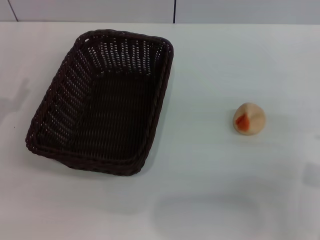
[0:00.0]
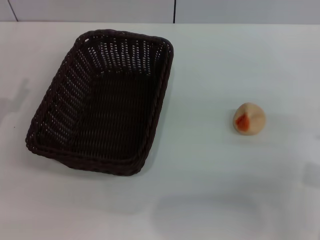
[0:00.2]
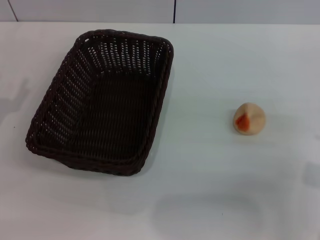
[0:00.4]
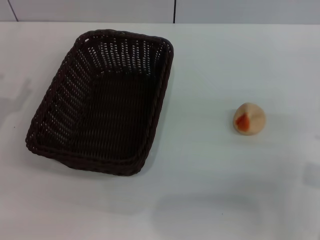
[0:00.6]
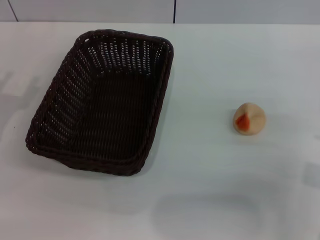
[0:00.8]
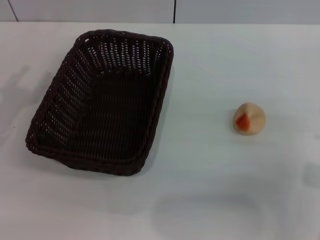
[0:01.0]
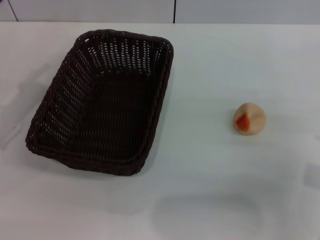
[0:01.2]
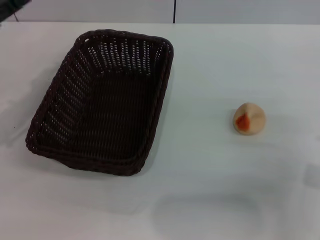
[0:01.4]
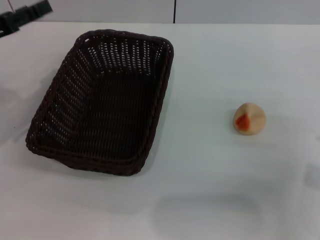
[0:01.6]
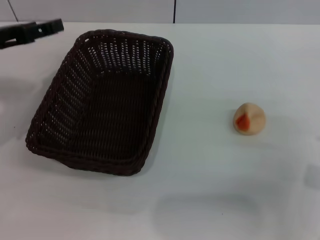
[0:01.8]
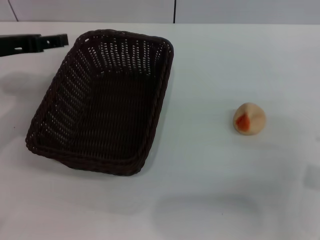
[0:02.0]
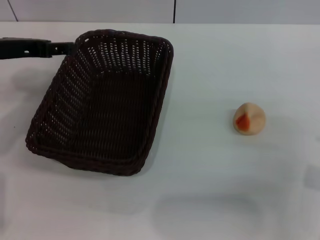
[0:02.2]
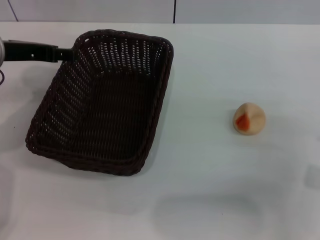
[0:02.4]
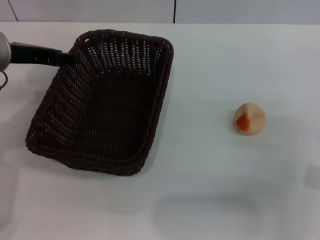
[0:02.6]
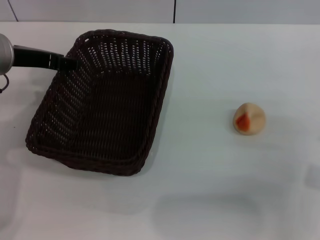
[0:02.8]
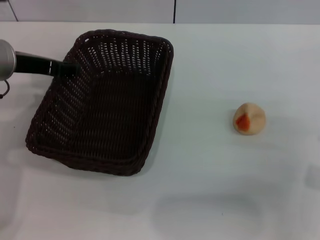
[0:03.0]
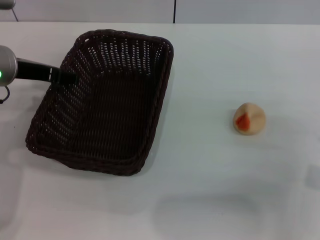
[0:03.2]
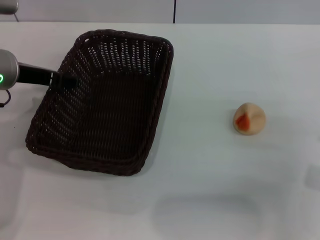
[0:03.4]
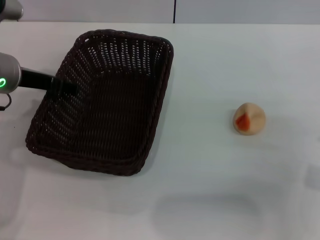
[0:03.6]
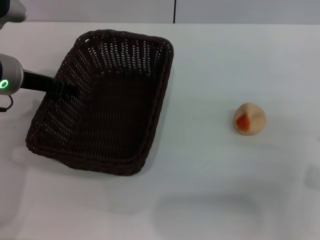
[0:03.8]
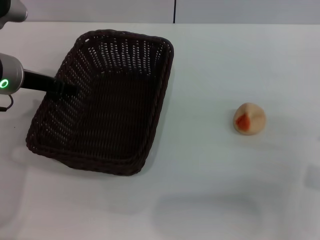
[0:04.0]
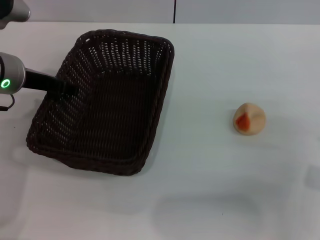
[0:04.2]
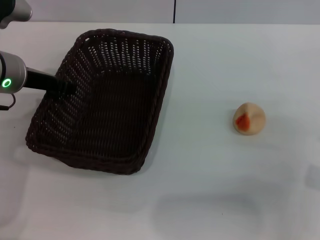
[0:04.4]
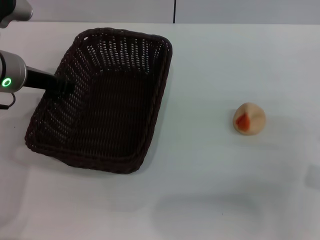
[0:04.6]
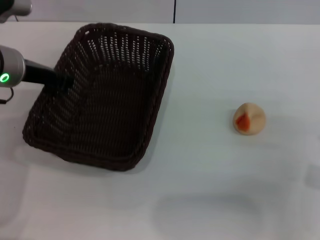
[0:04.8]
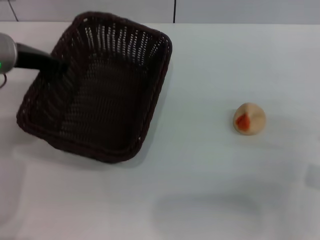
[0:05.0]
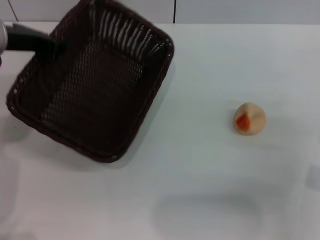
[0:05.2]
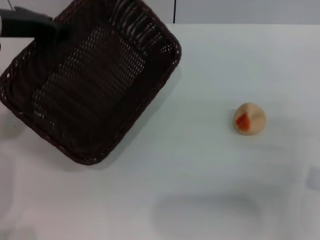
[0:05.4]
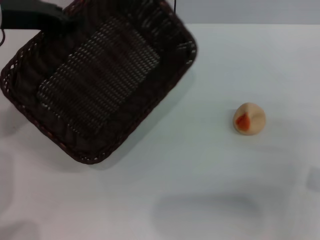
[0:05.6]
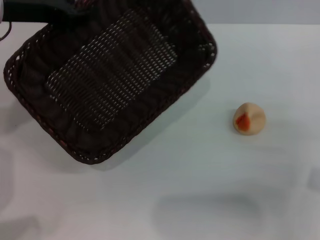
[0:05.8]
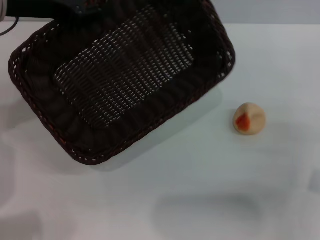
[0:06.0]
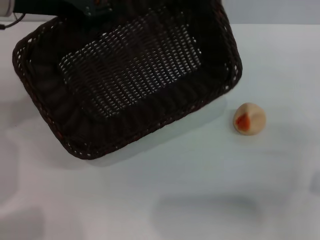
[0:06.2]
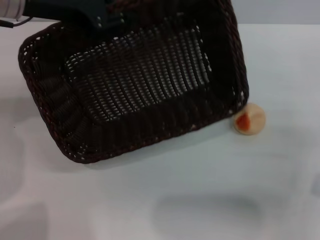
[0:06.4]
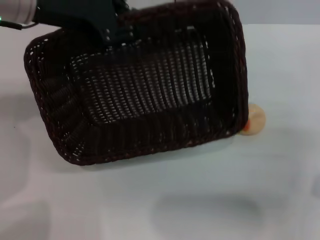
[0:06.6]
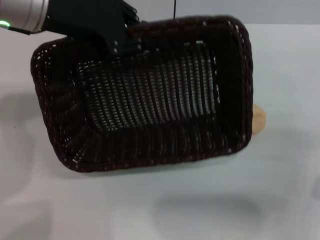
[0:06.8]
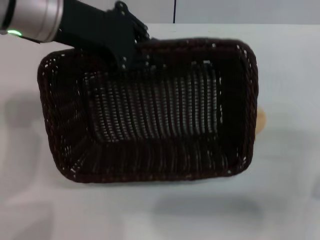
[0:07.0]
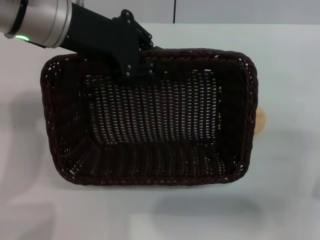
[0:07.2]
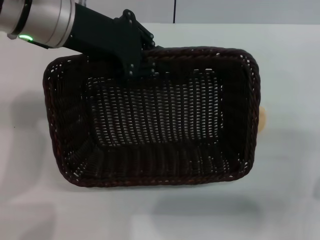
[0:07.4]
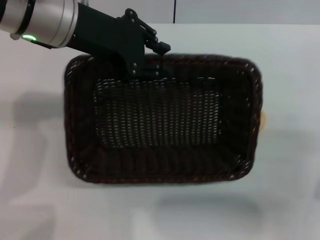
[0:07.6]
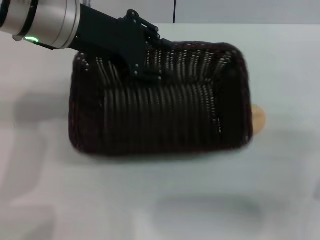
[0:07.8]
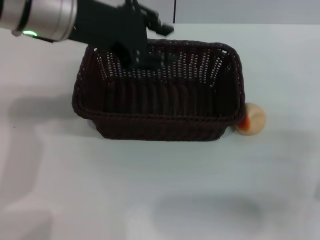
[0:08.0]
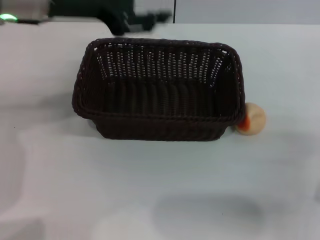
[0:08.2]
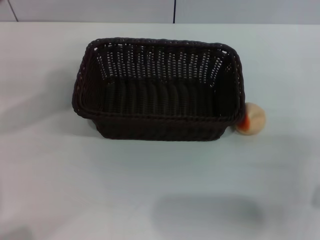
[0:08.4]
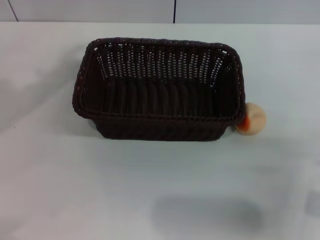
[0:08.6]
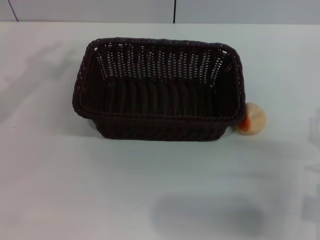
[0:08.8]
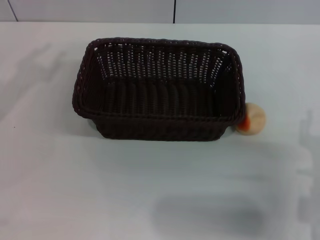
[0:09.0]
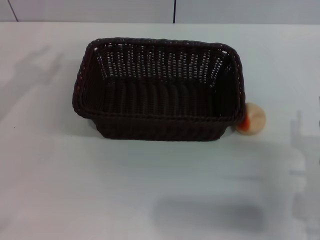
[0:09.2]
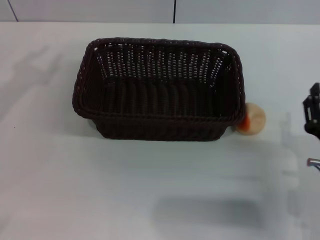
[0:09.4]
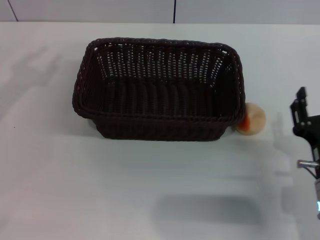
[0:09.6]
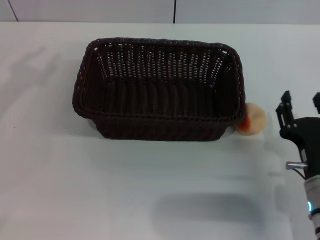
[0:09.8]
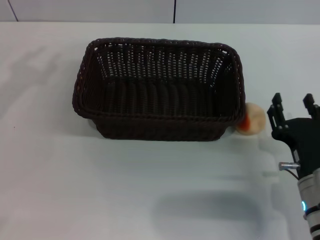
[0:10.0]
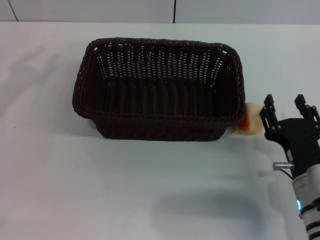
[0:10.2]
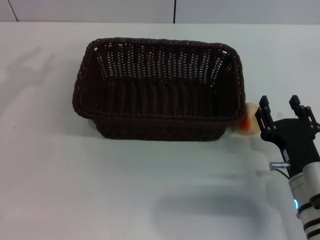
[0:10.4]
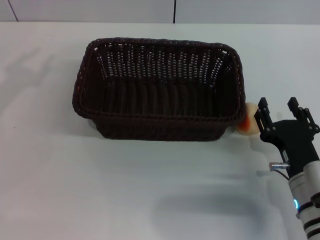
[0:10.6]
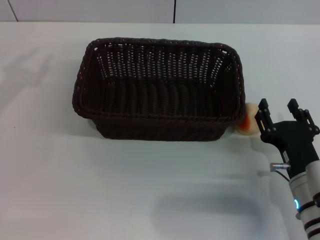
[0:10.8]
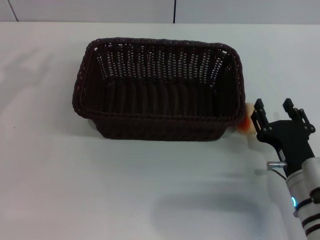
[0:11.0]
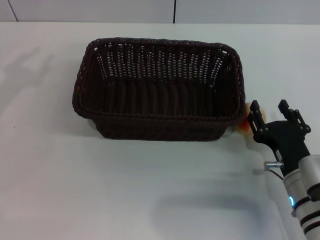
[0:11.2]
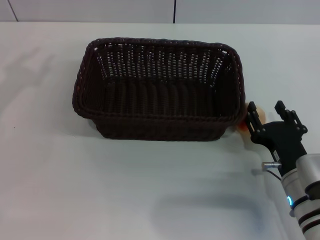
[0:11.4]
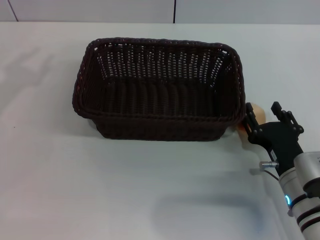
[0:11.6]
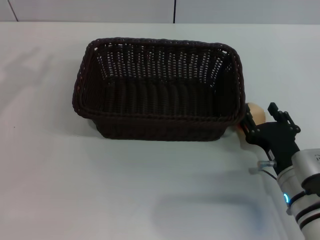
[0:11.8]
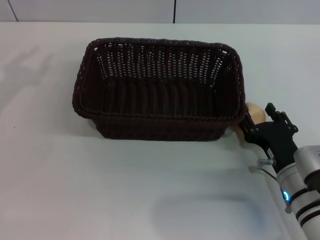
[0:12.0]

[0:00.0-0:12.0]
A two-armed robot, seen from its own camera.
Step, 0:00.0 to 0:08.0: Move the basket to the center of view with the left gripper.
0:00.0 to 0:01.6: The left gripper moves upward and forward, approximately 10 cm.
0:01.6 to 0:03.0: The left gripper goes roughly 5 cm to the right.
0:03.0 to 0:04.4: The left gripper closes up.
0:04.4 to 0:06.0: The left gripper travels upward by roughly 10 cm, and closes its fingers.
0:06.0 to 0:07.6: The left gripper goes approximately 5 cm to the right.
0:07.6 to 0:09.0: The left gripper moves to the left, approximately 20 cm, and opens its fingers. Meanwhile the right gripper ends up approximately 5 cm from where it was.
0:09.0 to 0:10.4: The right gripper moves about 5 cm.
0:10.4 to 0:12.0: The grippers stay close to where they were, moving slightly.

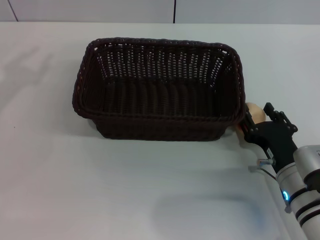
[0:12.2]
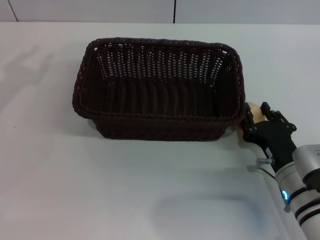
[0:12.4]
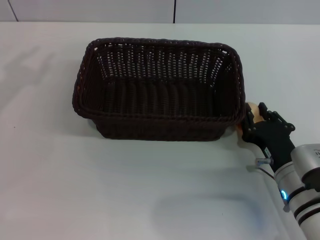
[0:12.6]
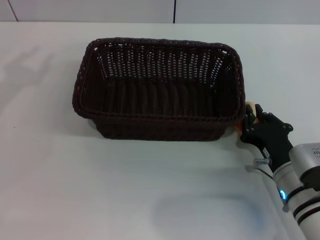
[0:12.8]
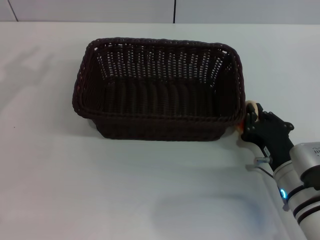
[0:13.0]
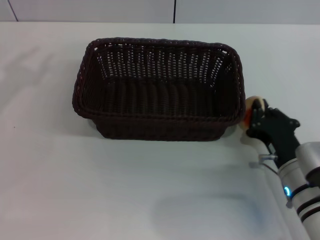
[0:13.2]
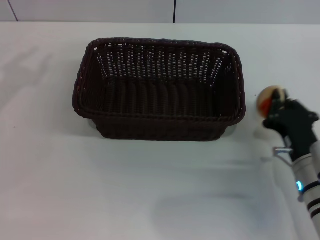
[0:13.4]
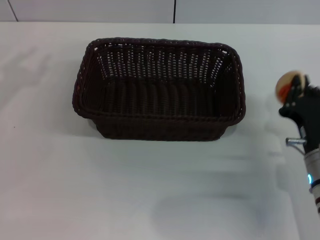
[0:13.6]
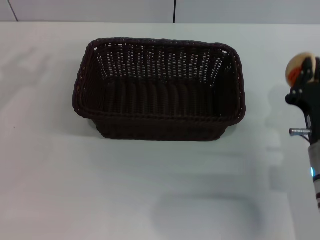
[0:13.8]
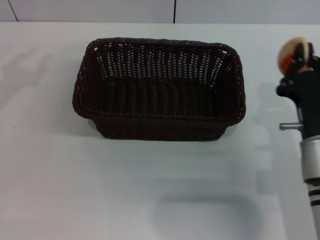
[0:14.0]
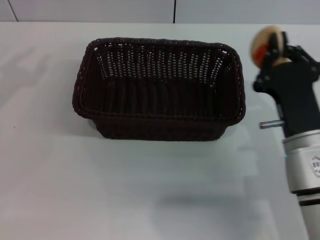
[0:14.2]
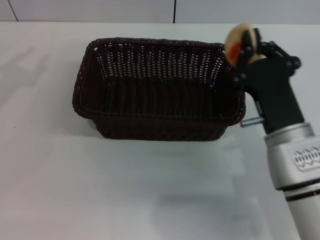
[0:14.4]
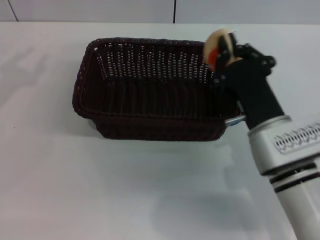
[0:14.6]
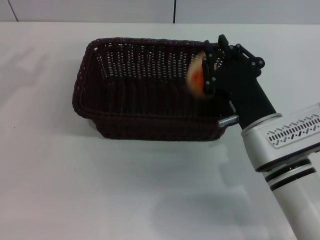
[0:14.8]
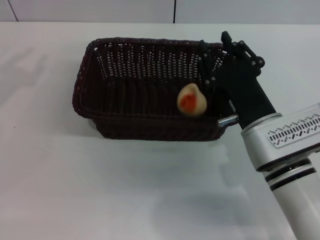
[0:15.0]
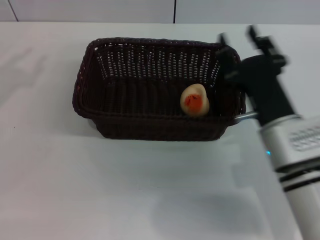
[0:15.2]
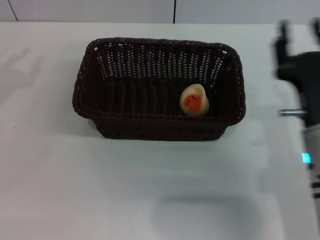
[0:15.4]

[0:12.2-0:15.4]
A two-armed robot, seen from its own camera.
Step, 0:13.4 to 0:14.8: Place the egg yolk pastry into the basket with the right gripper.
0:12.2 to 0:13.8: The right gripper closes up.
0:13.8 to 0:15.4: The right gripper opens its fingers.
